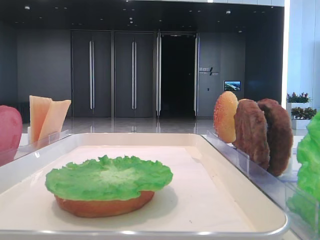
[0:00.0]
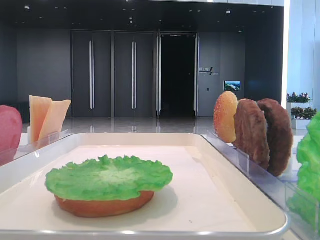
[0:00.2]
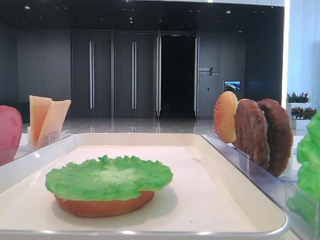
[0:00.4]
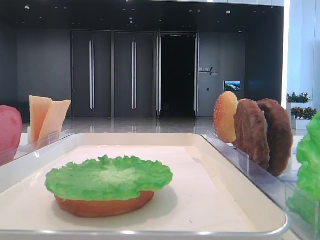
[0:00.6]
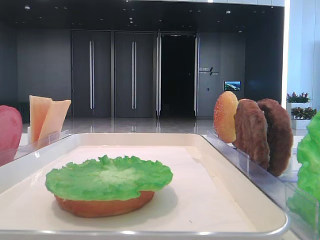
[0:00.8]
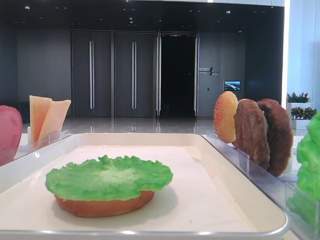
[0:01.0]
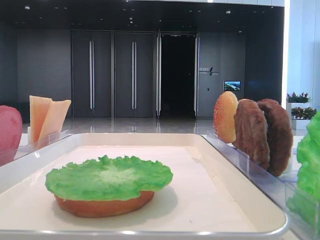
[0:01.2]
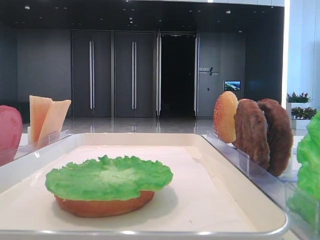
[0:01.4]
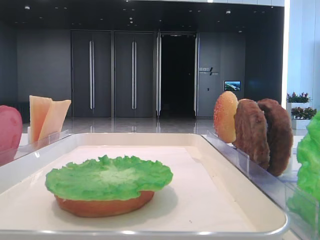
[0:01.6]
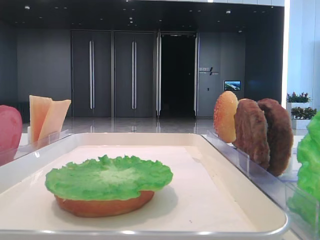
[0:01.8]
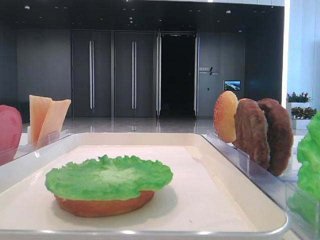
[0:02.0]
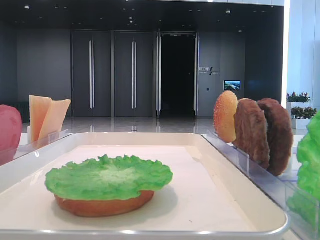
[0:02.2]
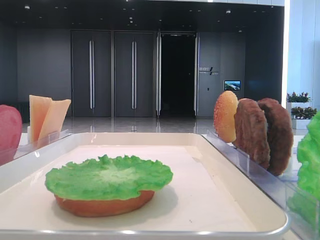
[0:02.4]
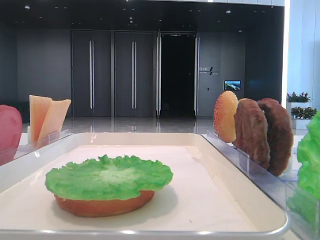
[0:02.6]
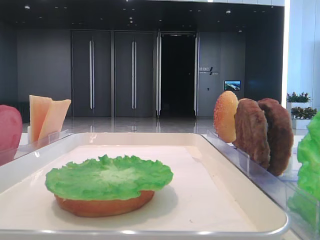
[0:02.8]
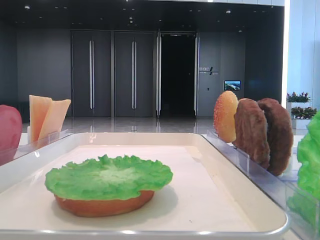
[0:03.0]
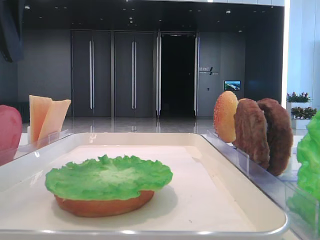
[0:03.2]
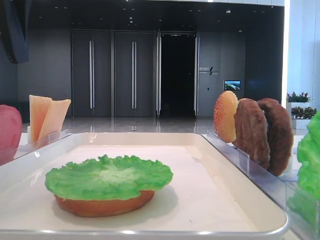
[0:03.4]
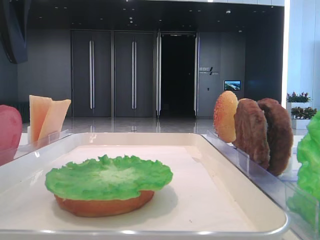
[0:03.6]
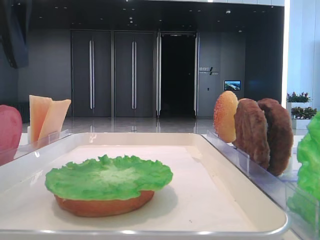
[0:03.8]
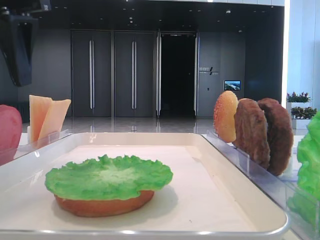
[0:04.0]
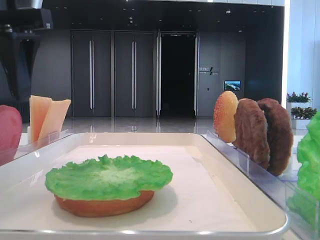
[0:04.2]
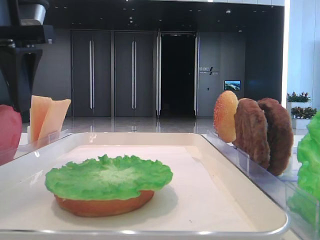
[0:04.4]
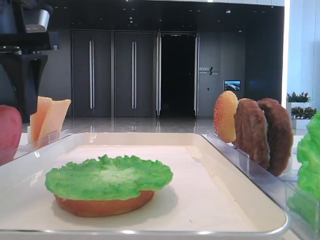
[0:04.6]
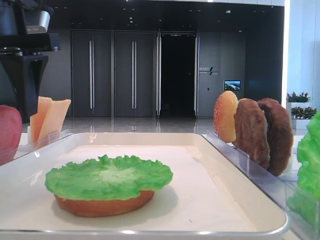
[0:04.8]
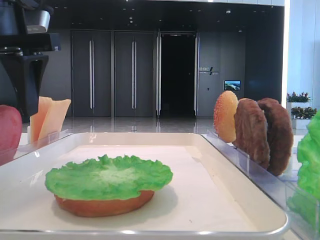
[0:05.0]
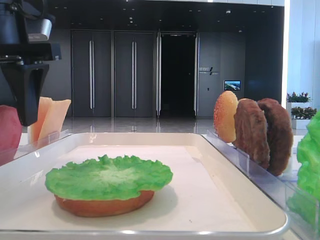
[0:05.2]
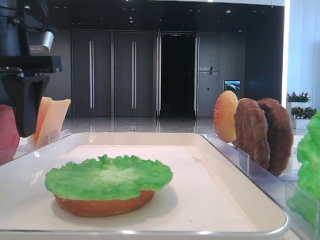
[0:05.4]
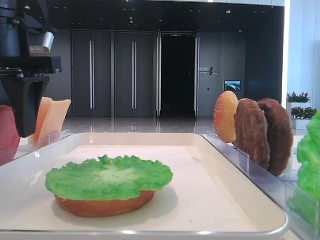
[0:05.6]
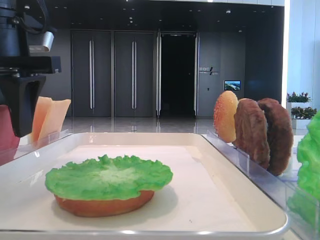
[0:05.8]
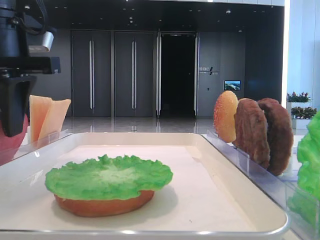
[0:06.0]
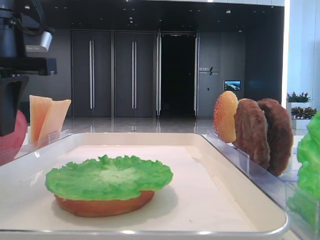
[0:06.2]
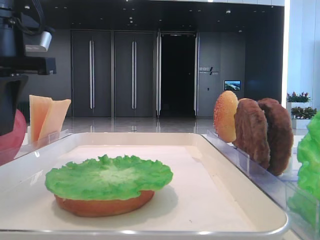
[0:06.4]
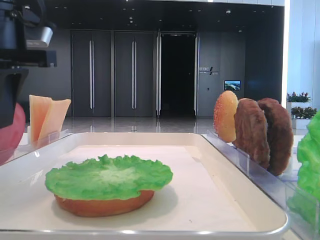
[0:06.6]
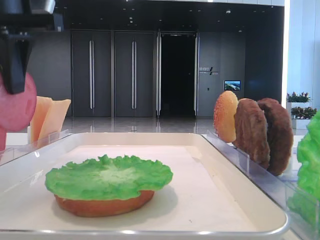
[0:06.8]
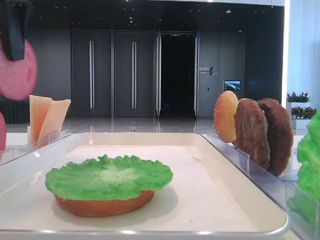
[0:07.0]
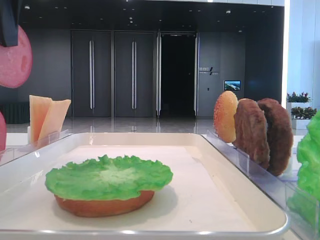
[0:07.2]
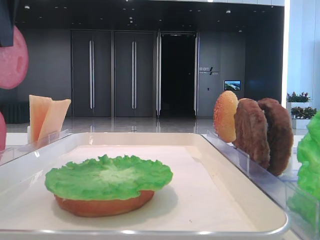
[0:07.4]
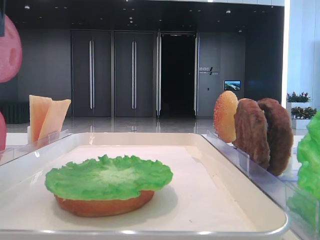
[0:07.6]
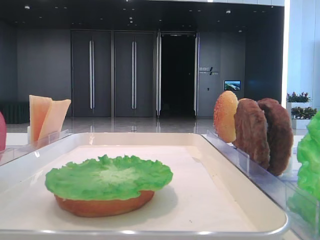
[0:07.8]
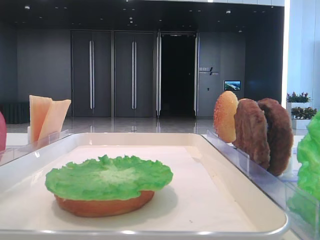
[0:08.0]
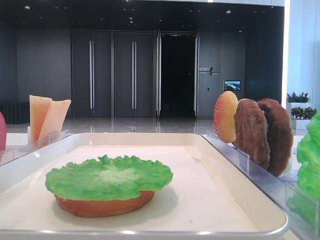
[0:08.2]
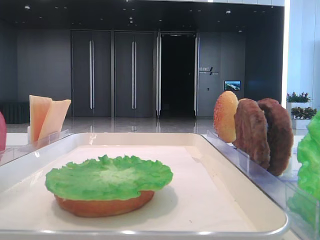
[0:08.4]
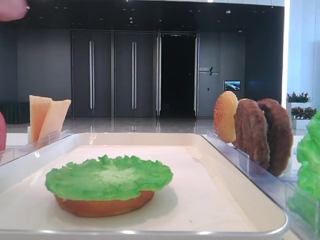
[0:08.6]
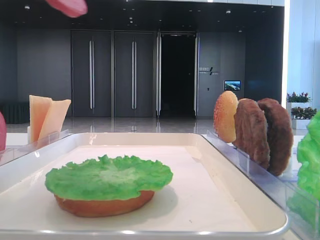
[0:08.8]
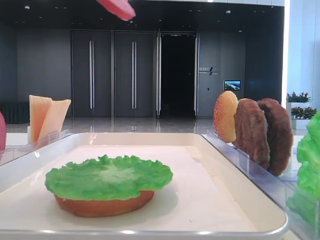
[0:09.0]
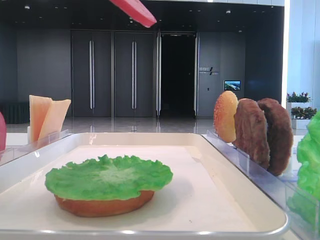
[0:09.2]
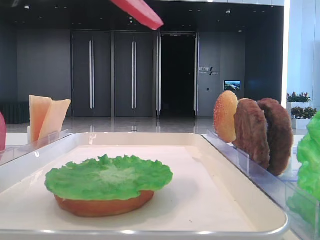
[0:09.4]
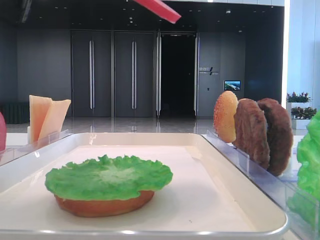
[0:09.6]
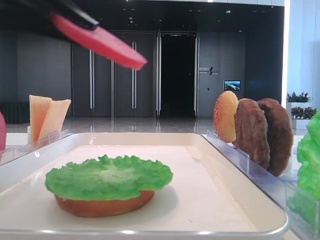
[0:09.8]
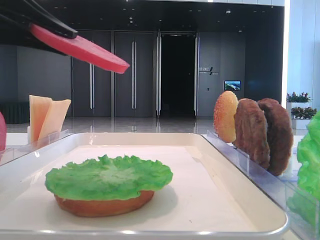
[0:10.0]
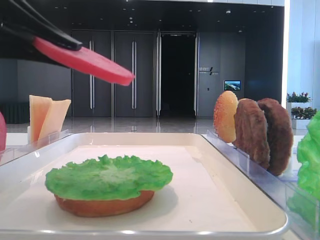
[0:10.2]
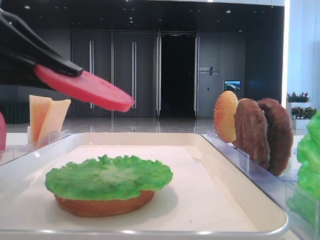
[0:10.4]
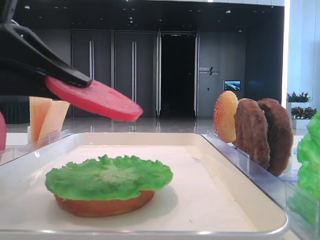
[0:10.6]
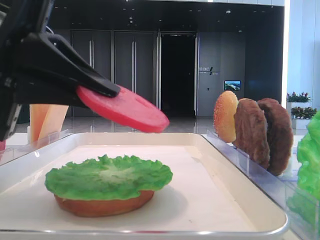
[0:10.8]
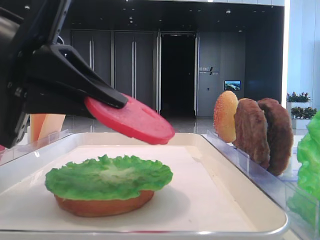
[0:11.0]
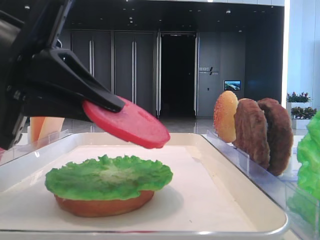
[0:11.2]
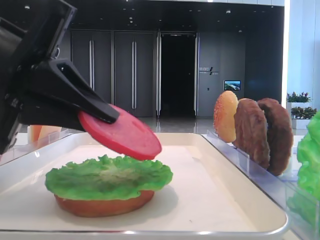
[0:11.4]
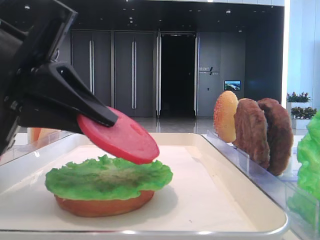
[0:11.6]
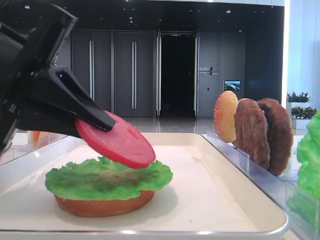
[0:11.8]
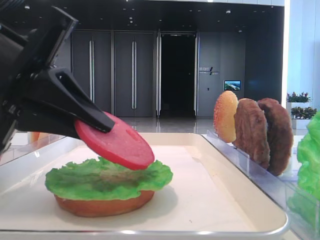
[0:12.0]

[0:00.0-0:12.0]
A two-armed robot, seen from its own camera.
Step, 0:00.0 to 0:06.4: Pick up the tomato slice with the left hand.
0:03.0 to 0:04.4: The left gripper moves to the right, about 10 cm.
0:04.4 to 0:06.0: The left gripper closes.
0:06.0 to 0:07.6: The left gripper travels upward by some 10 cm, and closes.
0:07.6 to 0:09.0: The left gripper moves backward, roughly 5 cm.
0:09.0 to 0:10.4: The left gripper shifts approximately 15 cm downward.
0:10.4 to 0:12.0: The grippers make only small movements.

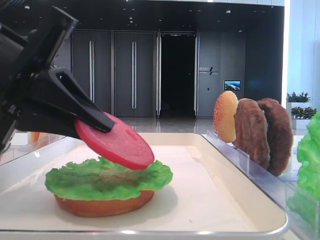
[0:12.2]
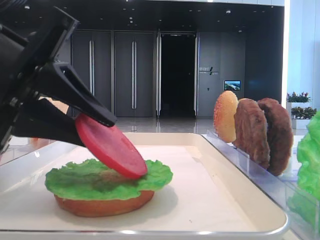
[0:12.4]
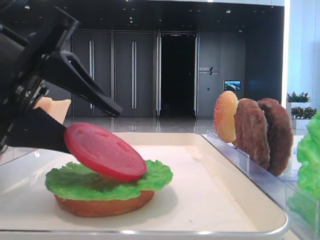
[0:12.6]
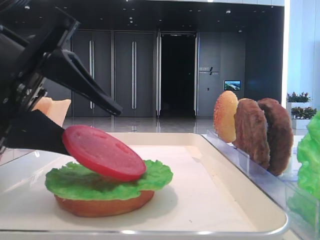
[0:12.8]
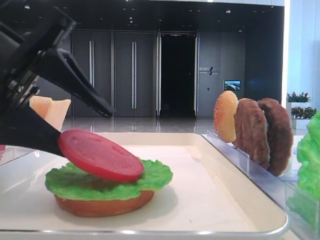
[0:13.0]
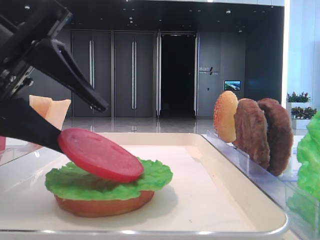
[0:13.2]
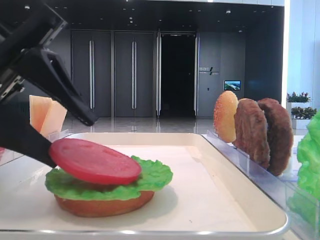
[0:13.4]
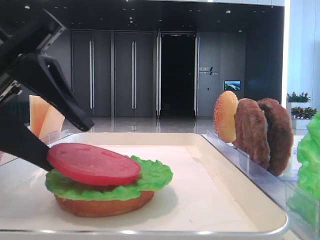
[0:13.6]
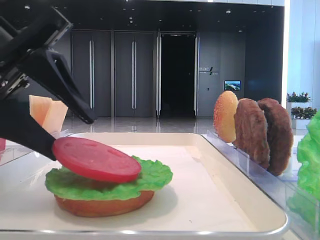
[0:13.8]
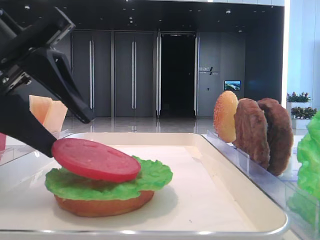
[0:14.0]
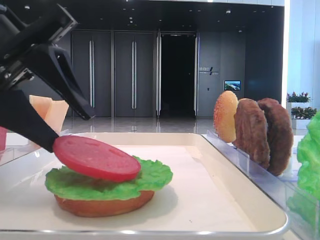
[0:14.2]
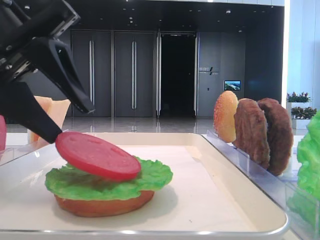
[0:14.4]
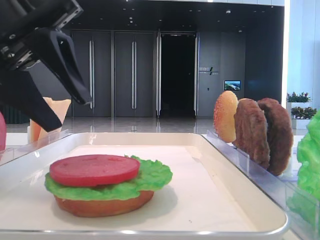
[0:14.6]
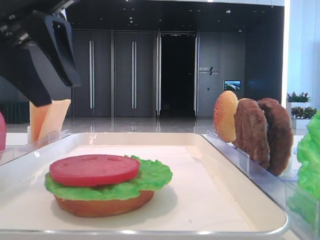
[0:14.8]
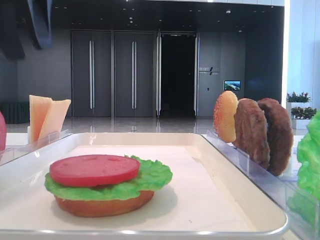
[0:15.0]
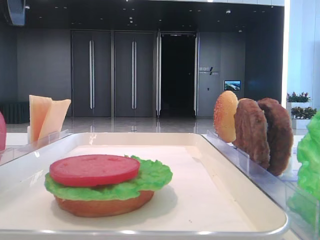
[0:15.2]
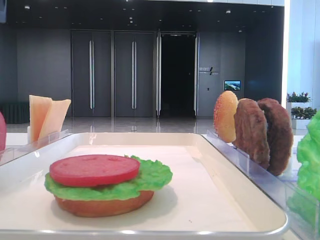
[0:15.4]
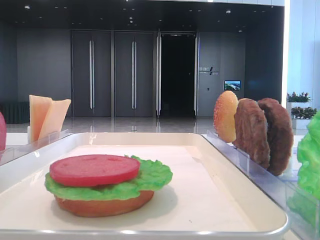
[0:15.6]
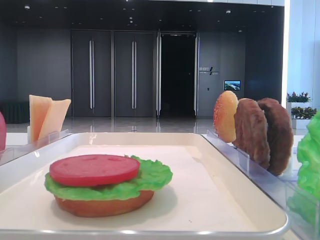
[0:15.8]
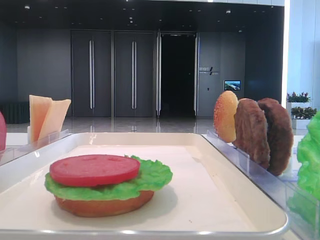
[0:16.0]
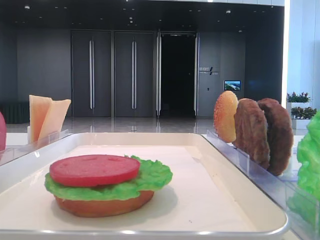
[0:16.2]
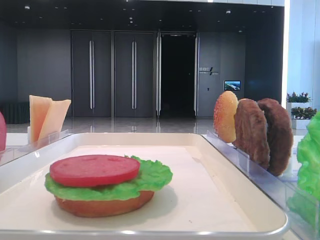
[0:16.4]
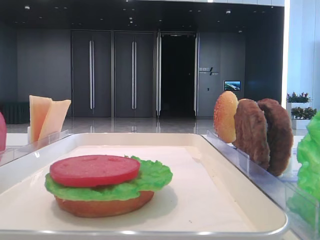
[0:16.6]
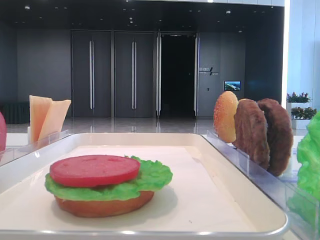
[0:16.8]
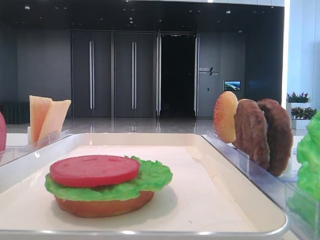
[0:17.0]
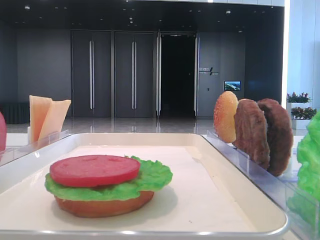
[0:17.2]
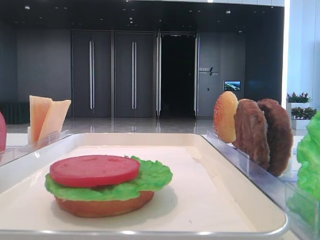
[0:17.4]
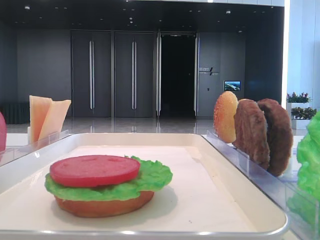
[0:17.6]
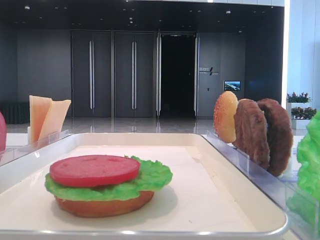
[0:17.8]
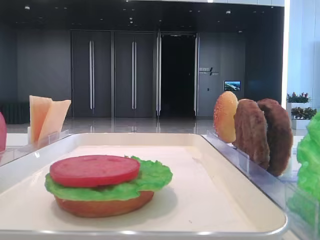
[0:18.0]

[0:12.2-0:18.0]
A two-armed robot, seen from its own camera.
Step, 0:12.2 to 0:14.4: Place the tomato slice on the lettuce leaf with the left hand.
0:12.2 to 0:13.6: The left gripper opens.
0:13.6 to 0:15.0: The left gripper is displaced upward and forward by about 15 cm.
0:15.0 to 0:16.6: The left gripper travels backward and to the left by approximately 25 cm.

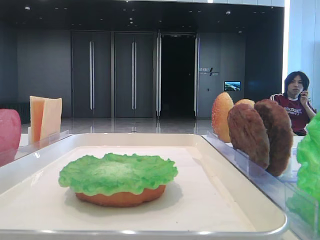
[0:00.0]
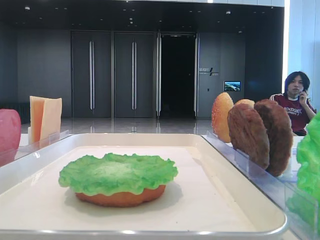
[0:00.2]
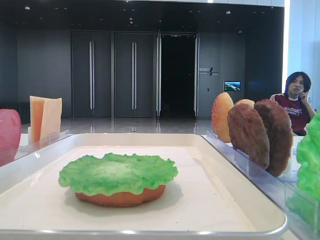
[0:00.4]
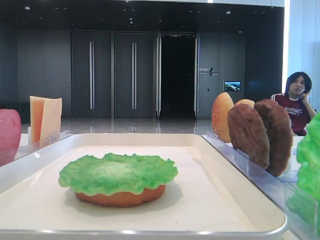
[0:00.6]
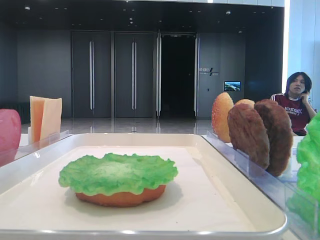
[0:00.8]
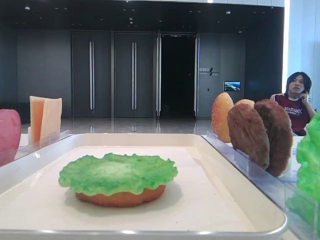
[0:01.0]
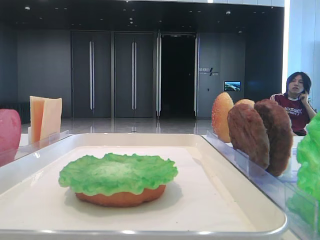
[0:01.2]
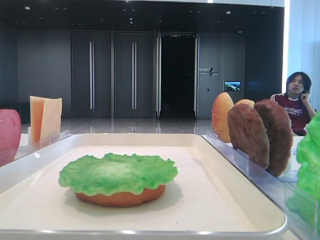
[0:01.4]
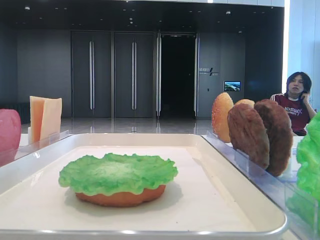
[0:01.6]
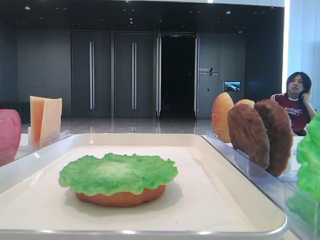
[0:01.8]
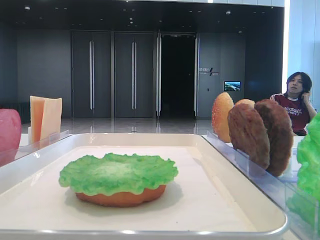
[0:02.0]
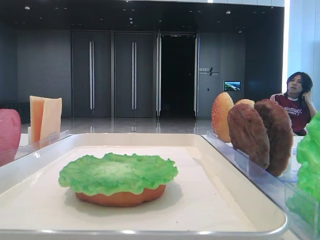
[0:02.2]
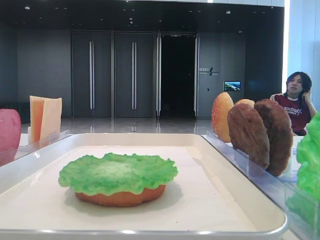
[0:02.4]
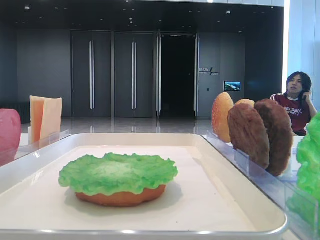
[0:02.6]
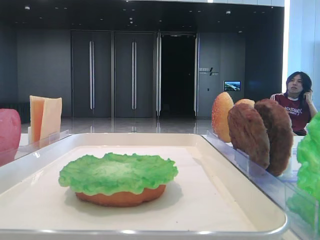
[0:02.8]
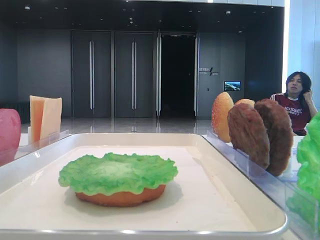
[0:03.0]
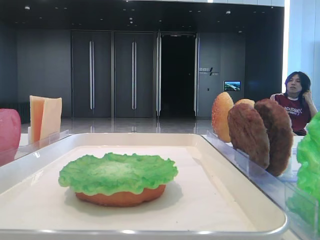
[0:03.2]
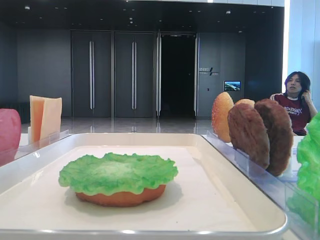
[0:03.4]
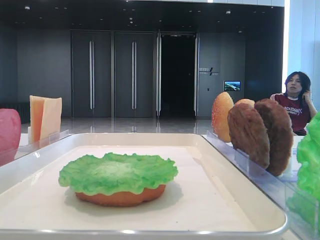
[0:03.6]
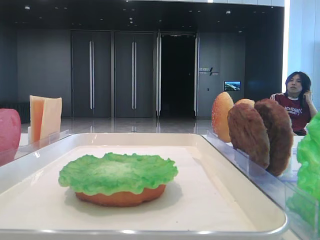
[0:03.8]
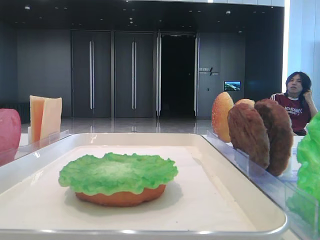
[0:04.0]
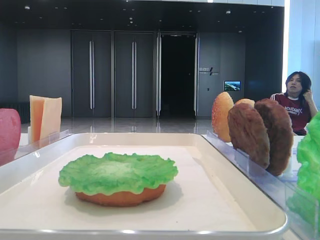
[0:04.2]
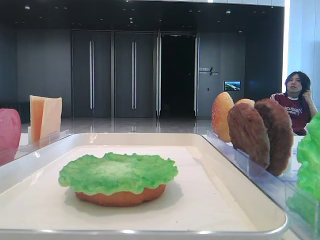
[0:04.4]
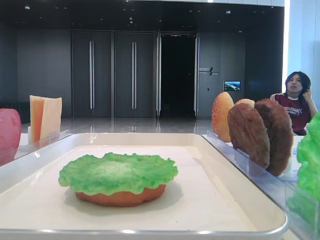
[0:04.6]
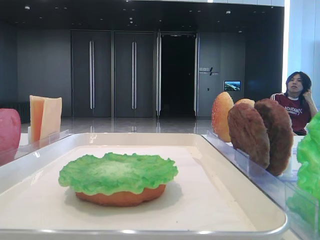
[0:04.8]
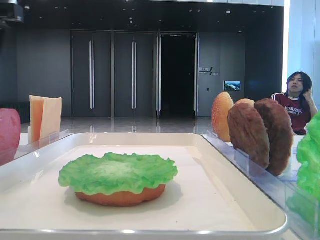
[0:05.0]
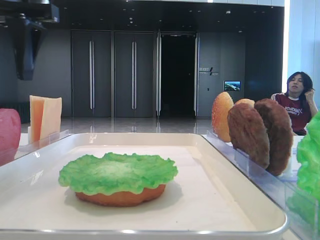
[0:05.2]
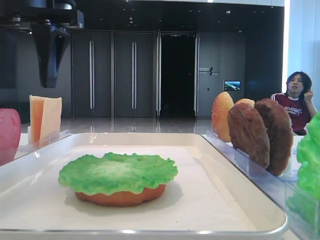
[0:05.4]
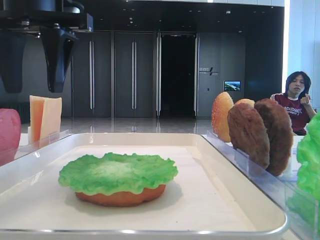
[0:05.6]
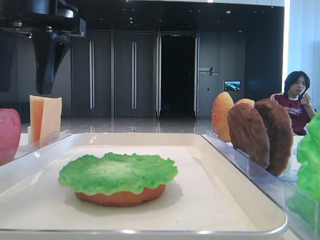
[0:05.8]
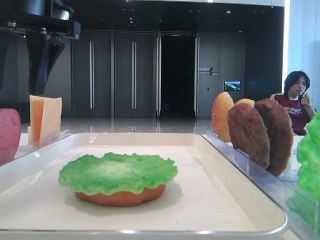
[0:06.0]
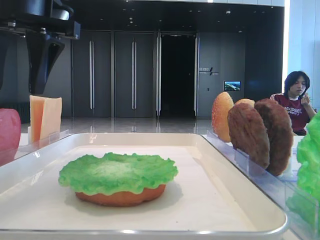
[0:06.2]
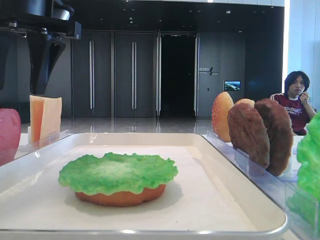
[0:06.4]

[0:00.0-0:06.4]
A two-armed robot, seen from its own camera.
0:04.8 to 0:06.4: The left gripper travels to the right by roughly 15 cm.
